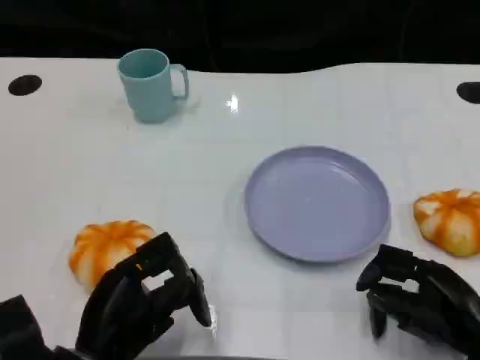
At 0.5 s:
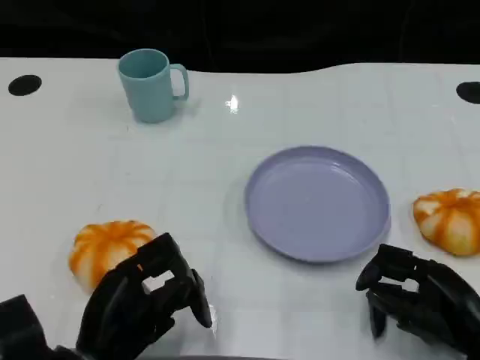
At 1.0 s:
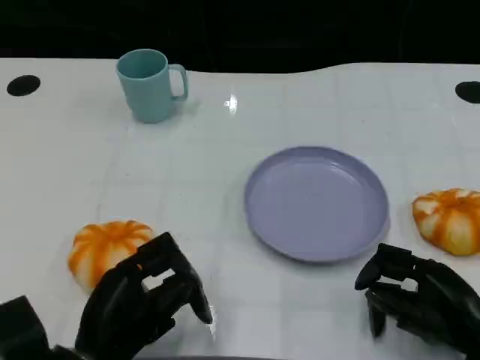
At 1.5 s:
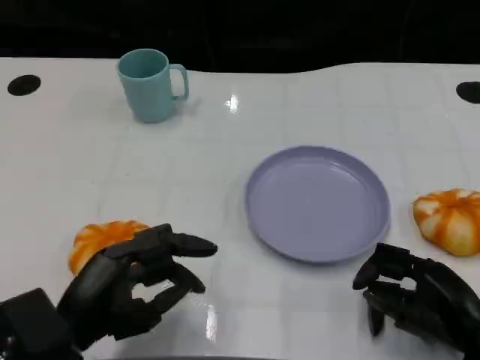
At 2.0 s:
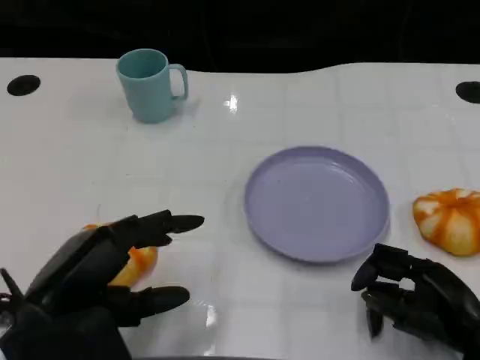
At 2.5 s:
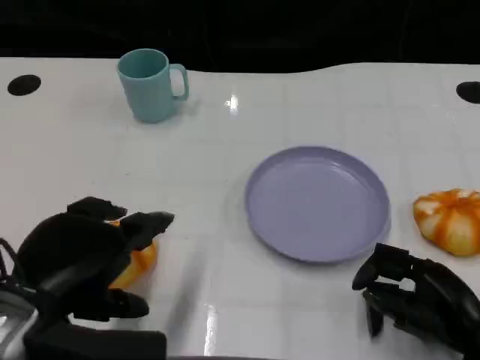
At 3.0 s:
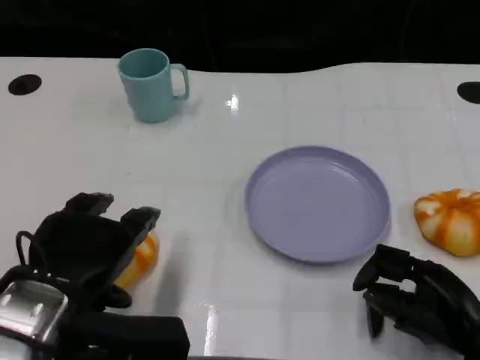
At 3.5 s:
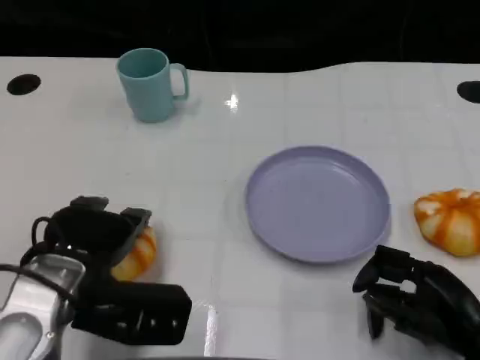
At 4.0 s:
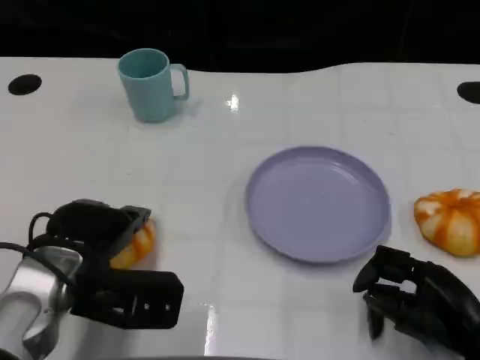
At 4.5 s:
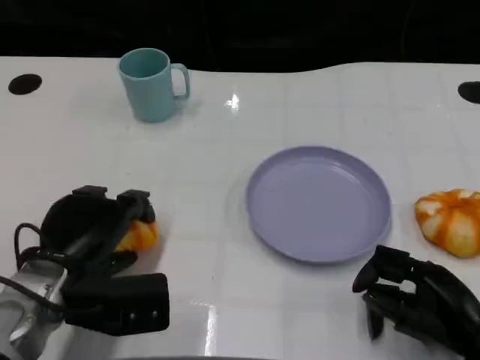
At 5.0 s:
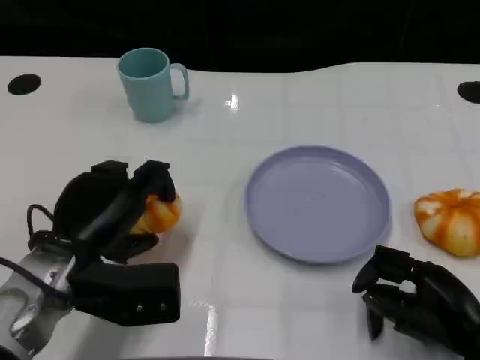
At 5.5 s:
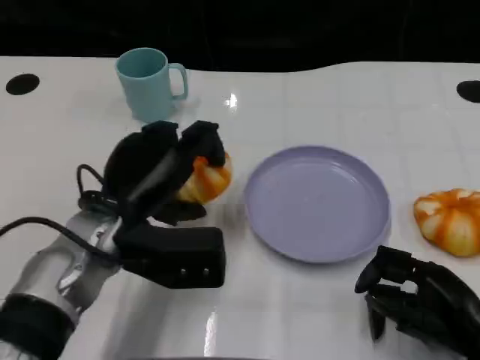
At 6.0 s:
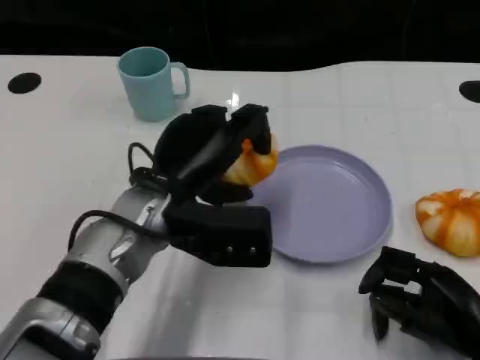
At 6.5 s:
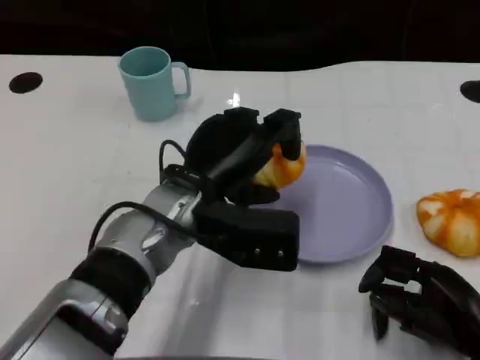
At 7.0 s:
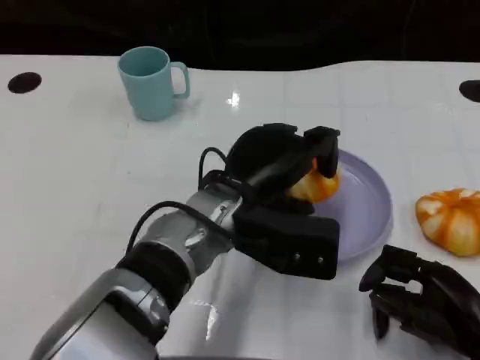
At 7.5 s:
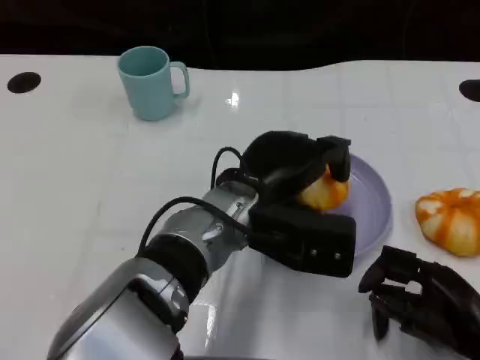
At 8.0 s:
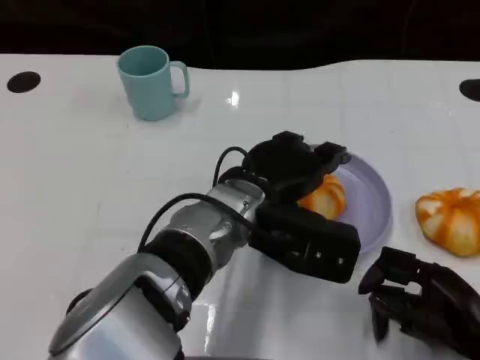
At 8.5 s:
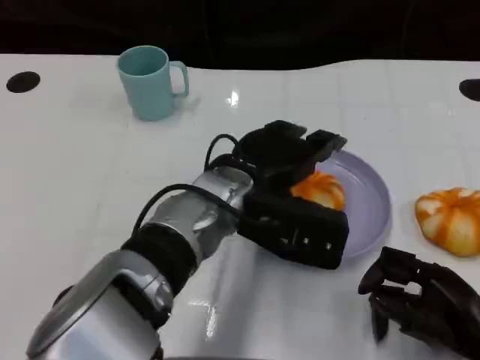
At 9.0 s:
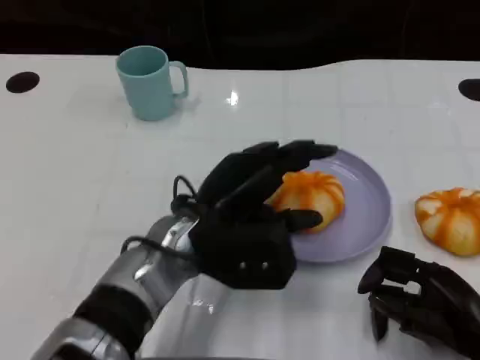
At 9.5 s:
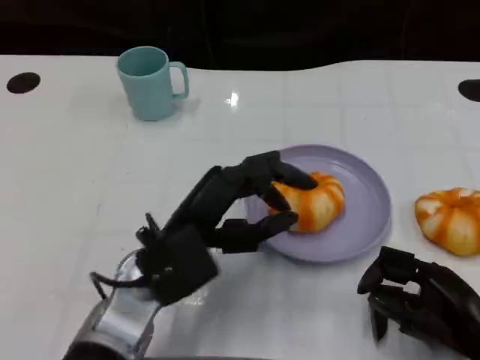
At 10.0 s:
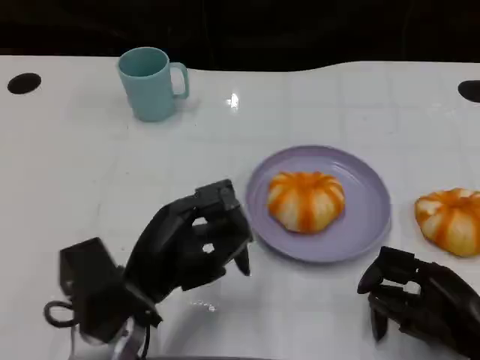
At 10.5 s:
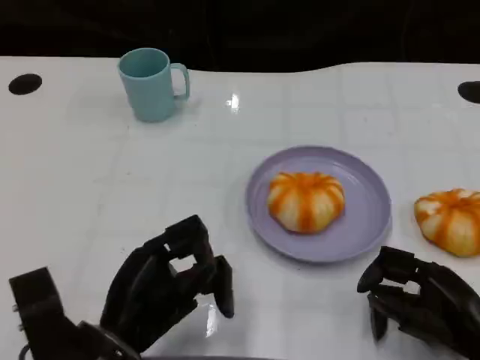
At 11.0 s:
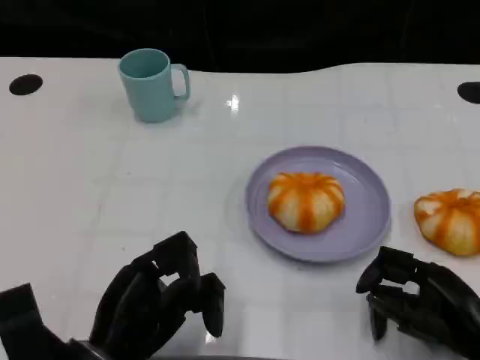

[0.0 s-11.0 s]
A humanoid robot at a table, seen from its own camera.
Task of the whole recording: Grasp the bread from the table and place it into the plate.
0.0 to 2.0 s: The left hand heads upward, covering about 10 cm.
2.0 to 3.5 s: The left hand heads forward, covering some 5 cm.
3.5 to 5.5 s: The left hand moves approximately 5 cm.
5.5 to 7.5 s: The left hand heads to the right, covering roughly 15 cm.
7.5 to 9.0 s: The left hand travels to the left by some 5 cm.
9.0 to 11.0 s: The left hand shifts about 15 cm backward, to the left and downward.

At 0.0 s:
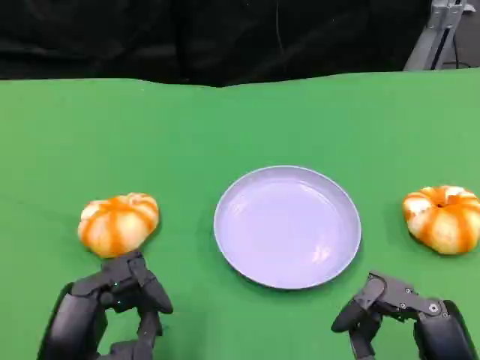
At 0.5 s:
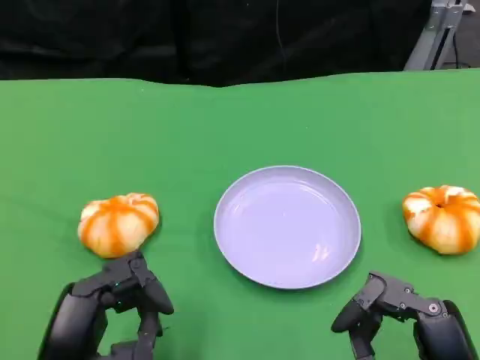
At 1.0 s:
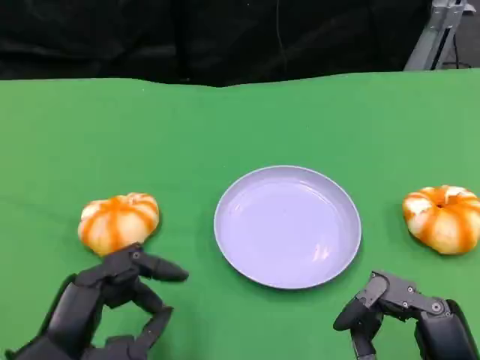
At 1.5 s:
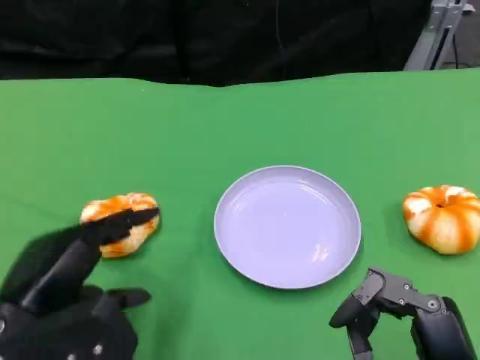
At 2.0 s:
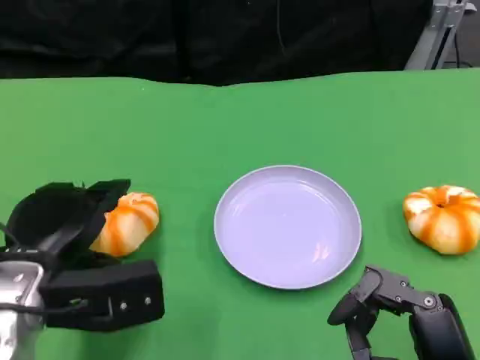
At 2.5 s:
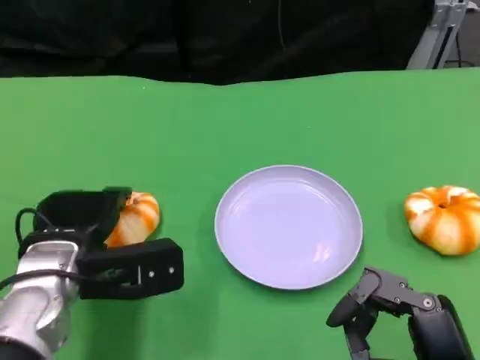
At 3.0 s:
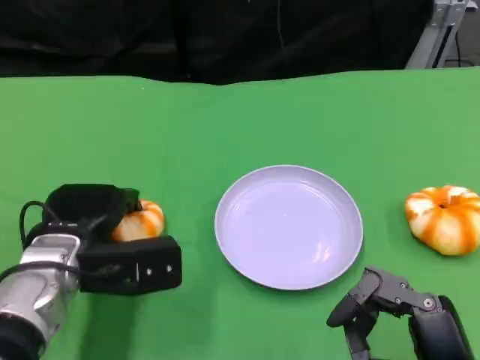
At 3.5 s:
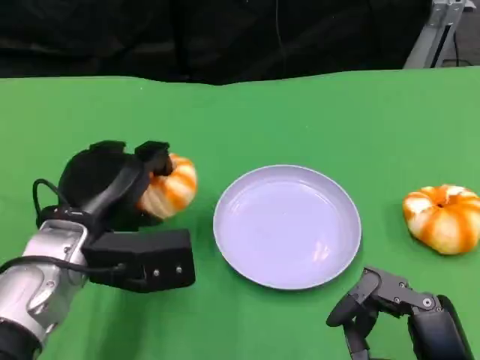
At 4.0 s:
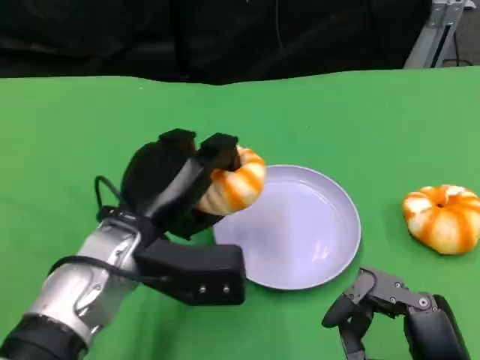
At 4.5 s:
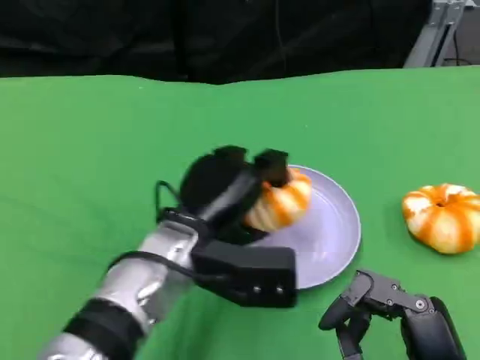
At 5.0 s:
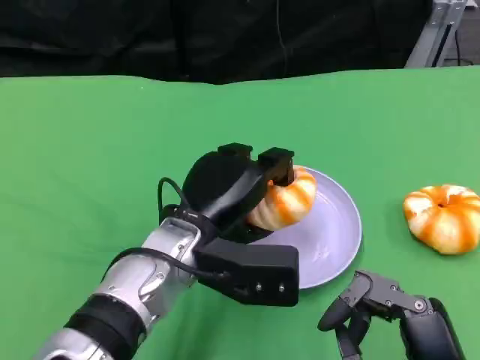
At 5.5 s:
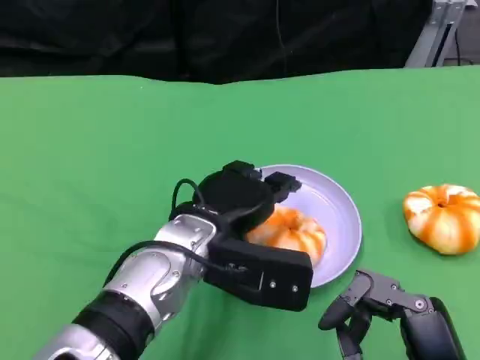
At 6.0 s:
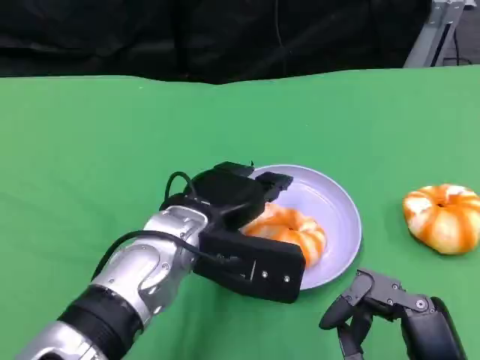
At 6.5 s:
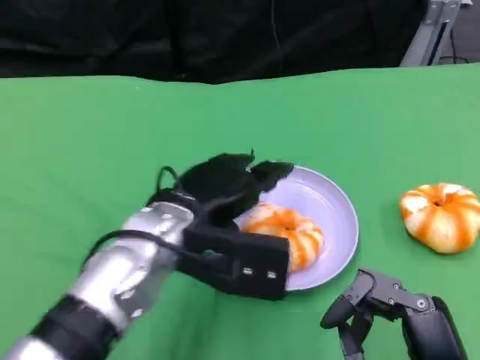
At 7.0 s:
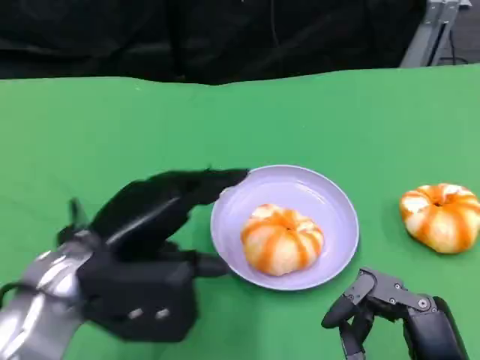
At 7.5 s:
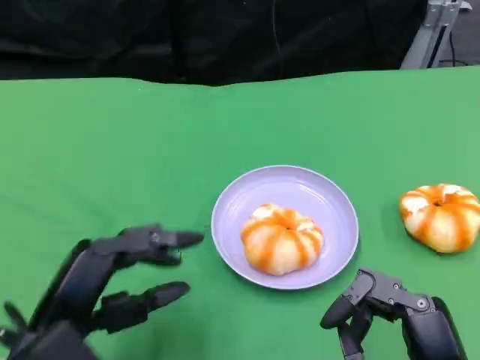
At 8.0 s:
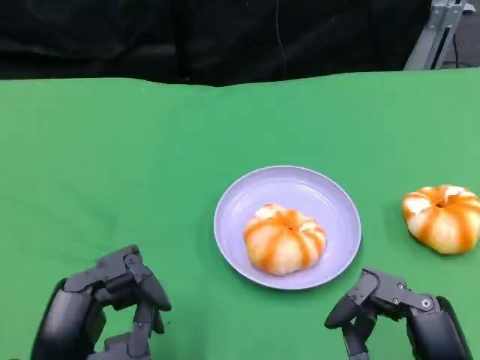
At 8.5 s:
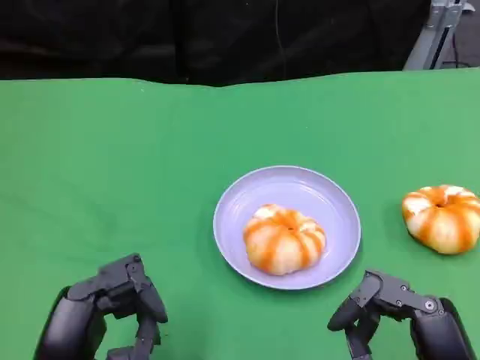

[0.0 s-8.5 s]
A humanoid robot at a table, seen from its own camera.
Task of the whole recording: Grasp the bread from the table and place it into the plate.
0.0 to 2.0 s: The left hand shifts about 10 cm forward.
2.0 to 4.0 s: The left hand is displaced to the right by about 10 cm.
6.5 to 8.5 s: The left hand is displaced backward, to the left and downward by some 20 cm.

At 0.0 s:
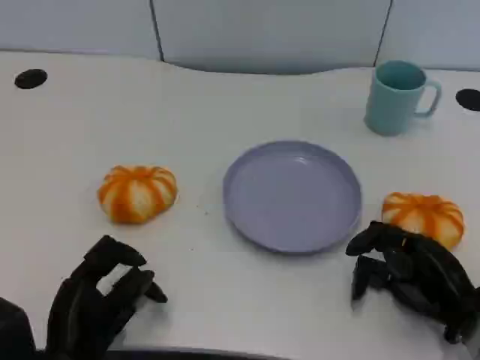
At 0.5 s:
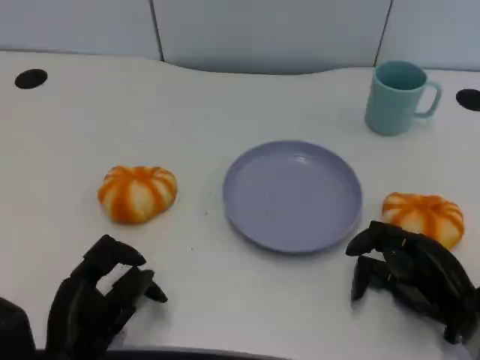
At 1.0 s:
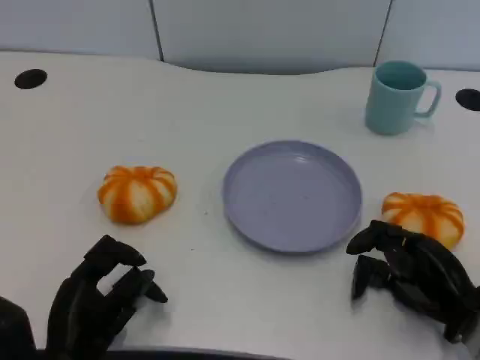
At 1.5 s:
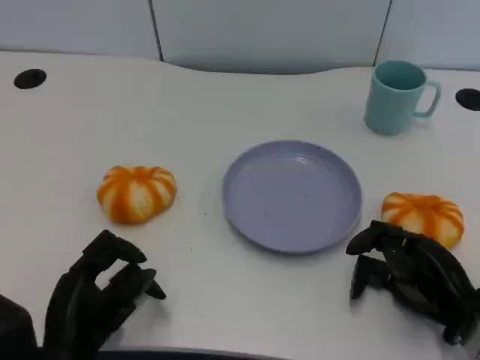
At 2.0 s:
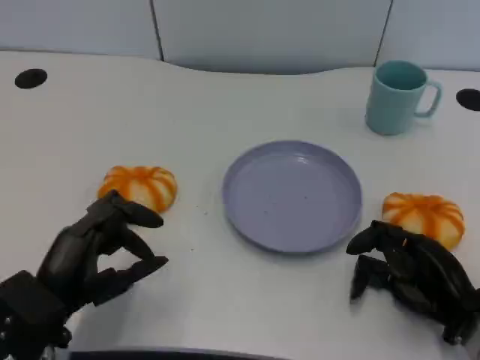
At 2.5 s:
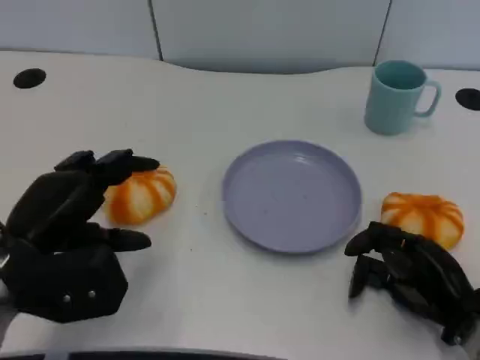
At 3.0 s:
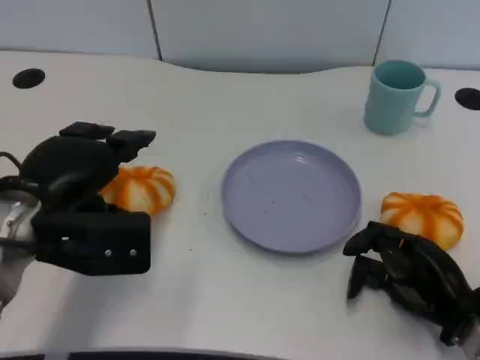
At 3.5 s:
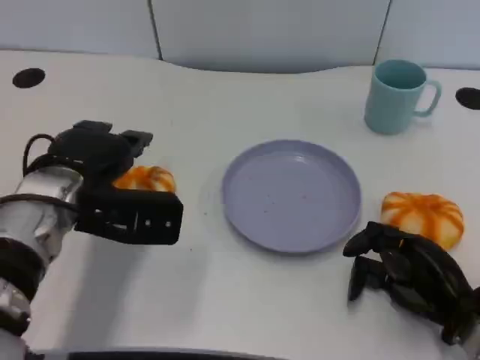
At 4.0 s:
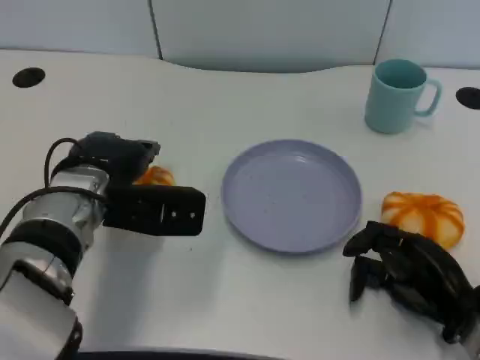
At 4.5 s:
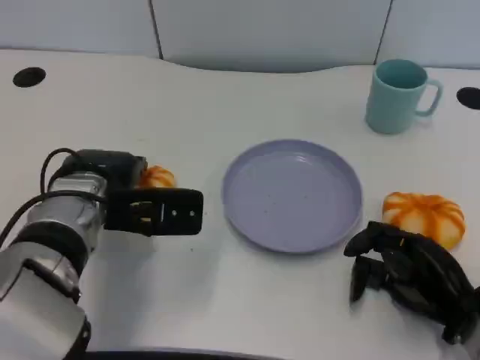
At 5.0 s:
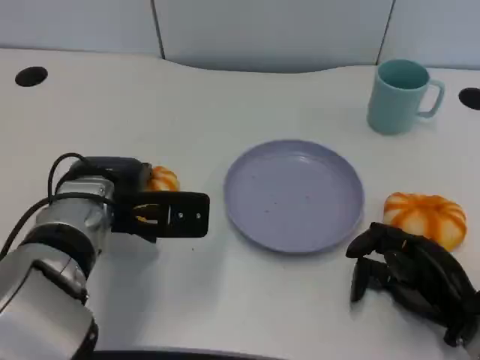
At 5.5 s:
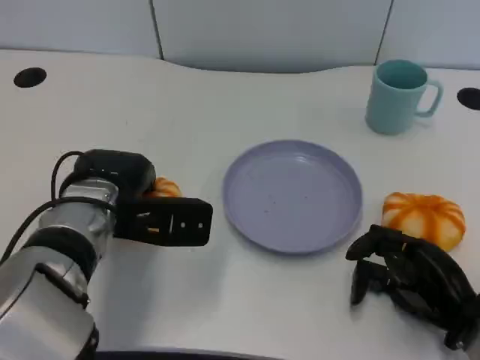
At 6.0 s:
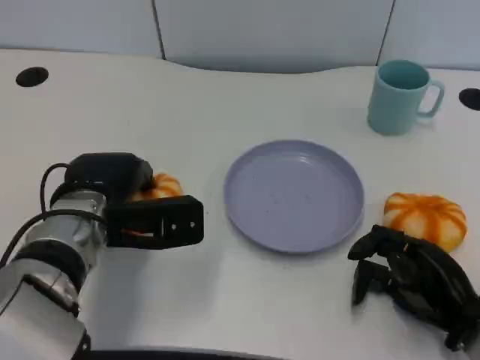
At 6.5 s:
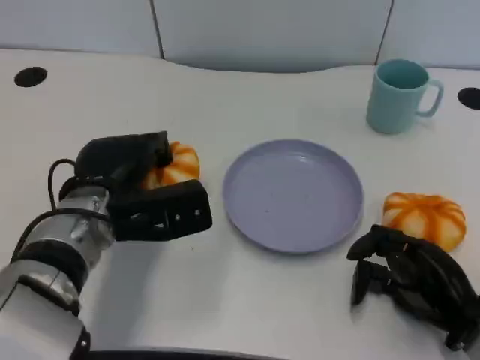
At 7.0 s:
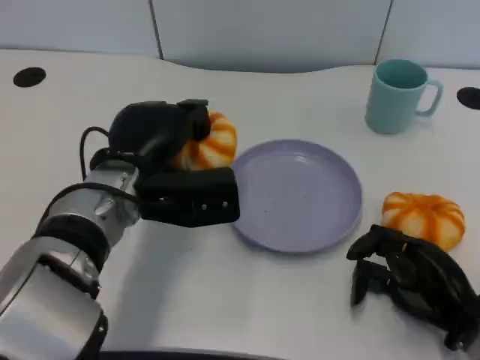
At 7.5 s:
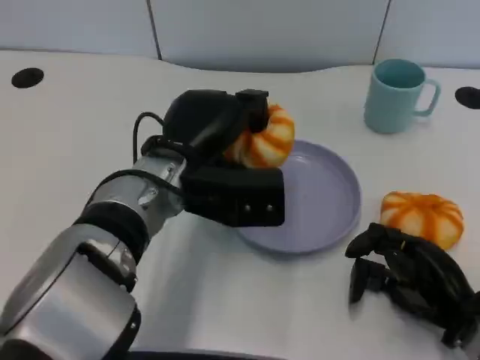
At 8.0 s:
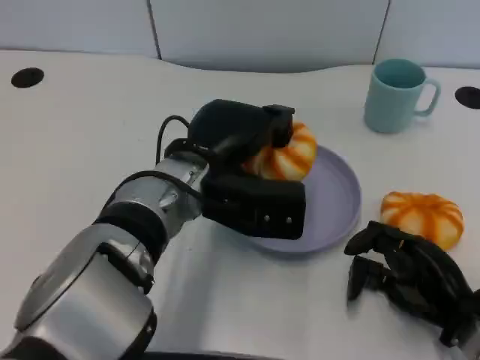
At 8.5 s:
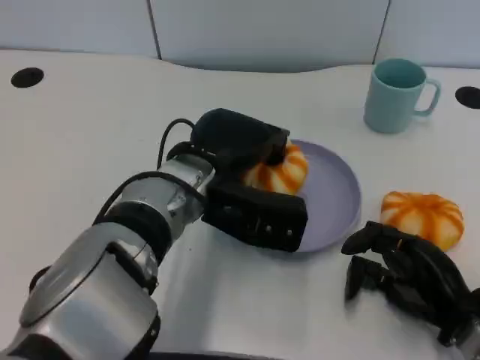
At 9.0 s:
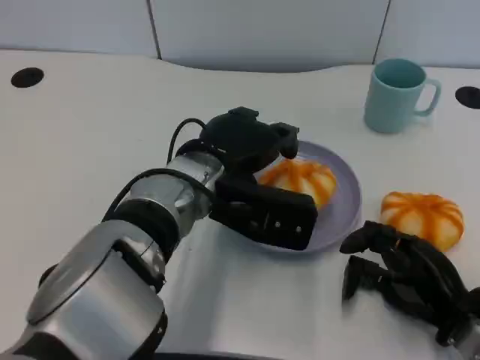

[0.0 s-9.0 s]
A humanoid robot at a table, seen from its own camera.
Task of the whole recording: Grasp the bread from the table and place it into the plate.
0.0 to 2.0 s: The left hand heads upward, covering roughly 5 cm.
2.0 to 4.5 s: The left hand shifts about 15 cm forward and to the right.
7.0 to 9.0 s: The left hand travels to the right by some 5 cm.
